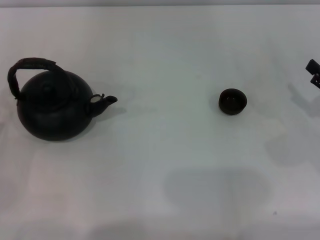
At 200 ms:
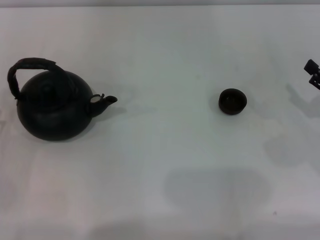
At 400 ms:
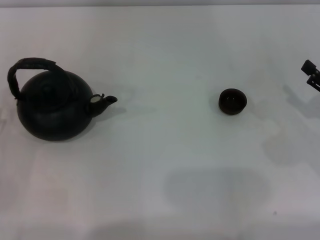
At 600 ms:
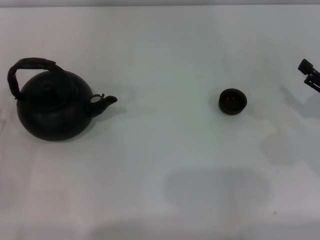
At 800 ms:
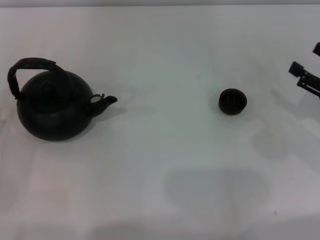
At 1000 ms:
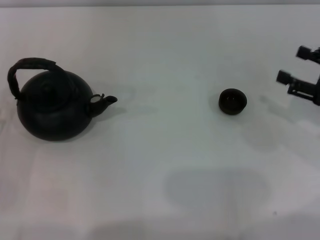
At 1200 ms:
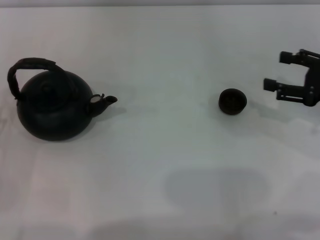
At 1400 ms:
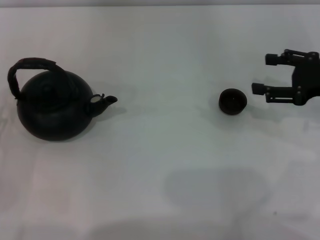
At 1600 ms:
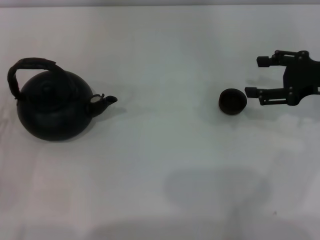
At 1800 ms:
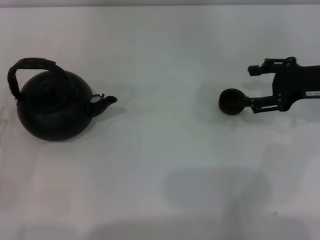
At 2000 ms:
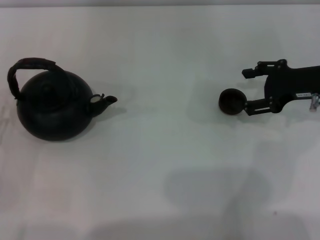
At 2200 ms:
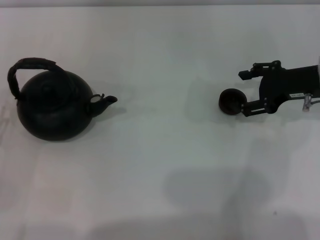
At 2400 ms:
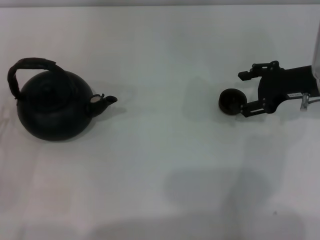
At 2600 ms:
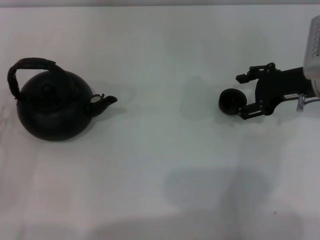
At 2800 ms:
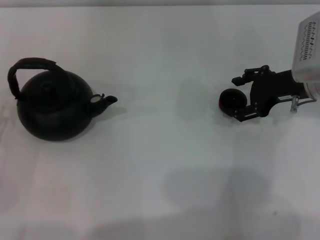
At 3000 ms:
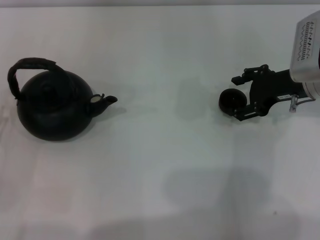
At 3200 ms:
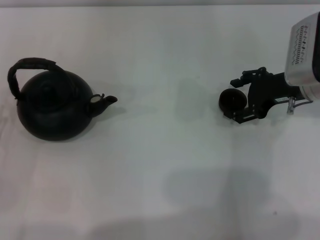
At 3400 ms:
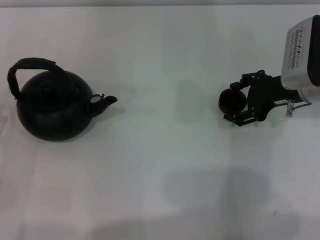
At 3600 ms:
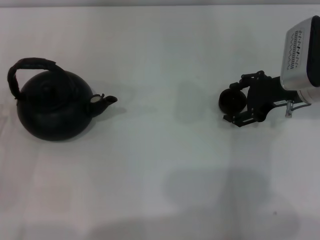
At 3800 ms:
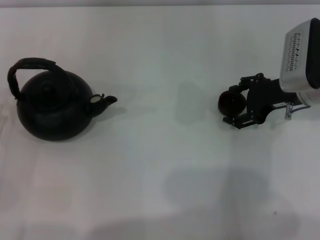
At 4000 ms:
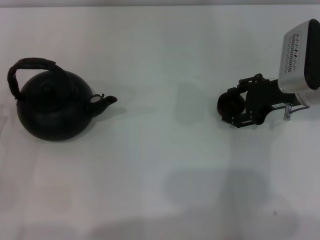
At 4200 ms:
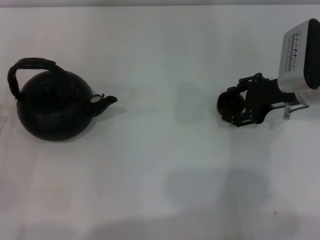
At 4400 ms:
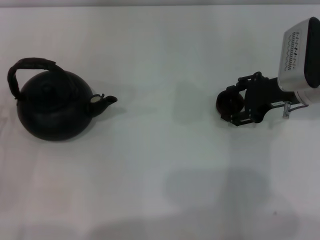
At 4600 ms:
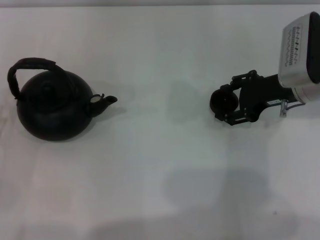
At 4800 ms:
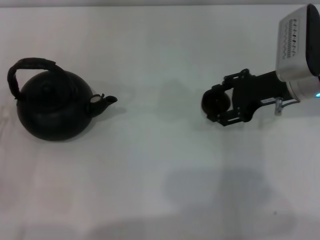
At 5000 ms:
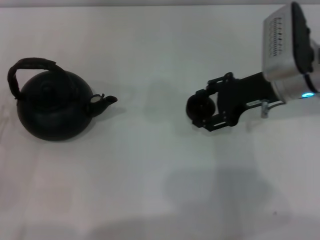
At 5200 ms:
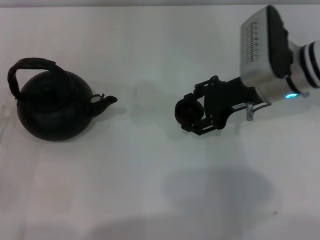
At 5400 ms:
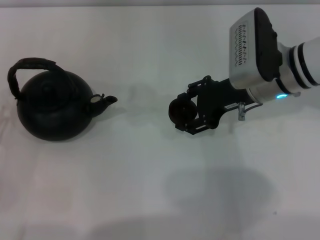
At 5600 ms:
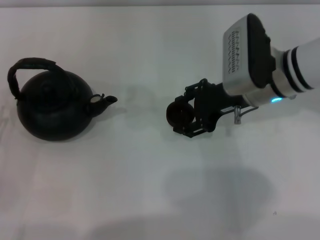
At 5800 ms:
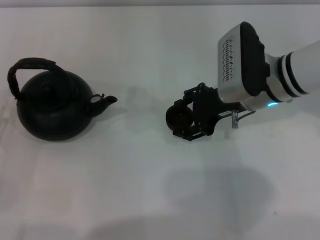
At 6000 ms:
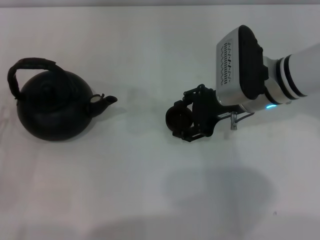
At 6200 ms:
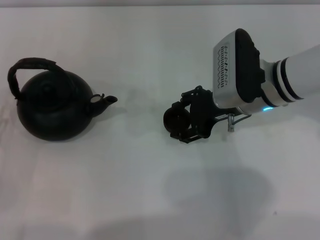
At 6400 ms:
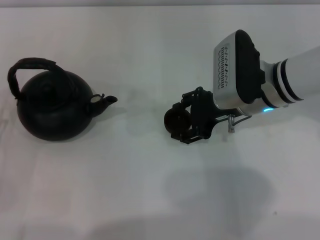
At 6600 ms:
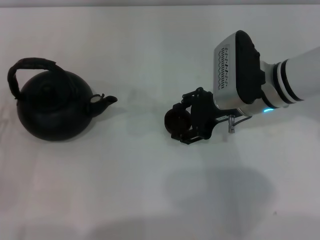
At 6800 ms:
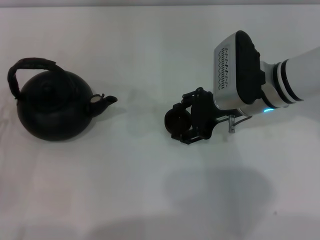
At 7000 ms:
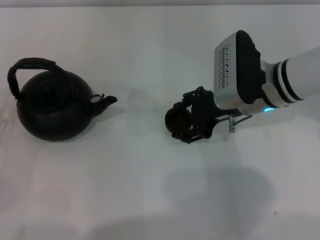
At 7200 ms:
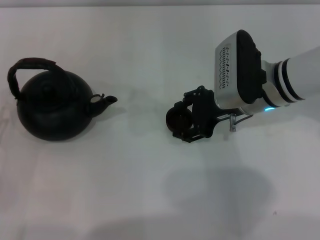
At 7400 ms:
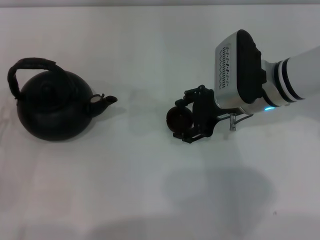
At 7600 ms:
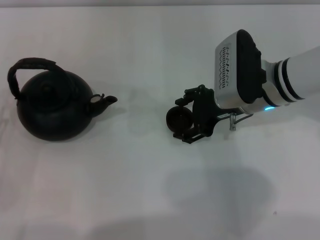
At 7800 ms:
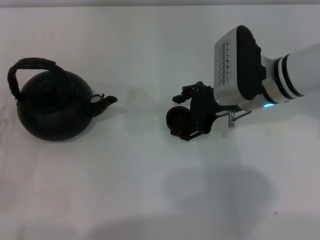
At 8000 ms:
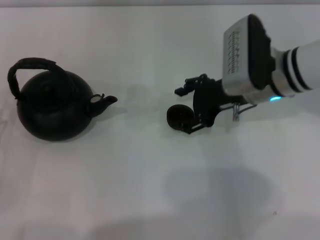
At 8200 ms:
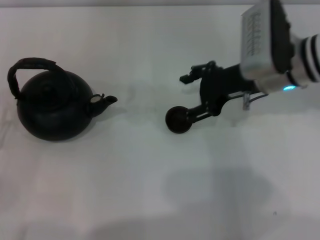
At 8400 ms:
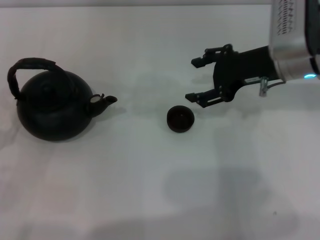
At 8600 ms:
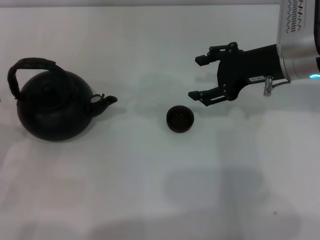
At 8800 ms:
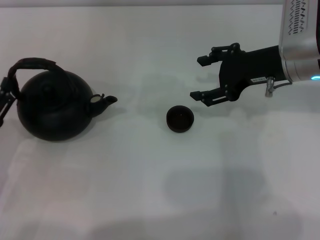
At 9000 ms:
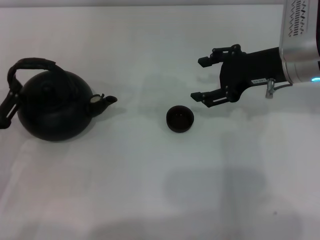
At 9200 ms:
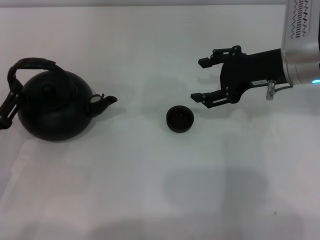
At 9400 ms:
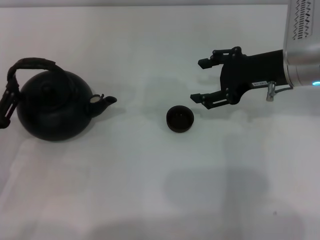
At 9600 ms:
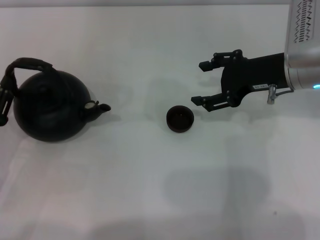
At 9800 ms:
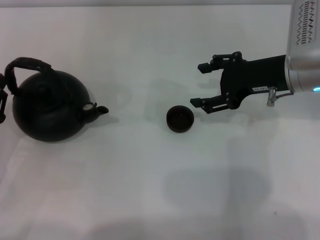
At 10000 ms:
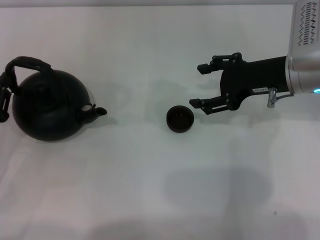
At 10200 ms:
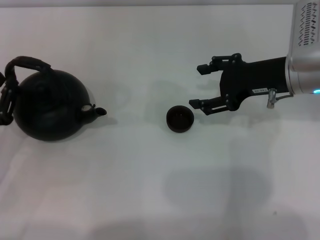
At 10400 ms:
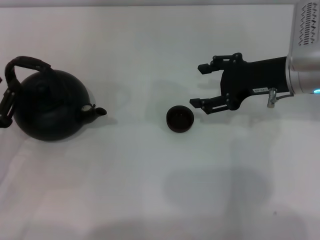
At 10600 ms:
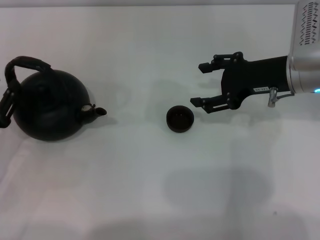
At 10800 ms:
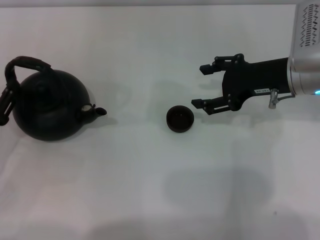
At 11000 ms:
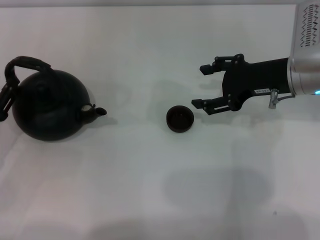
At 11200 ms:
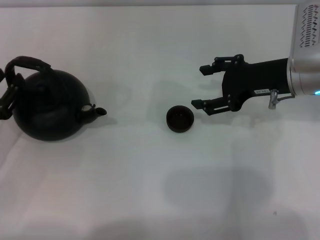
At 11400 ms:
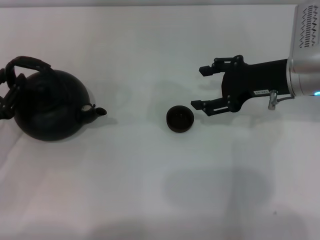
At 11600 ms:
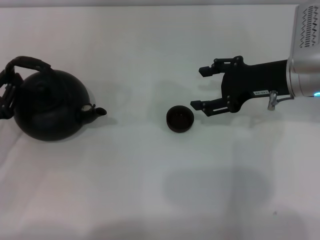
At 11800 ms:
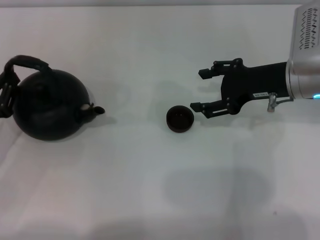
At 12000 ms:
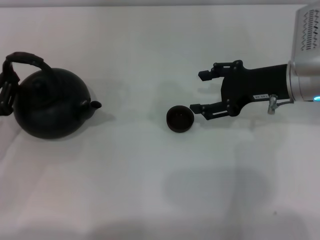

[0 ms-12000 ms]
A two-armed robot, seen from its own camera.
Task of the whole recording: Grasp the handle of the teapot with one hand and pour tea into the teacup.
Step, 0 ms to 4400 ms: Pick up the teacup with the right gripper.
Step, 4600 ms to 8000 ms: Place the teacup in the center of view with the right gripper.
0 ms to 1600 ms: The right gripper moves upward and forward, some 10 cm.
1600 ms to 3000 ms: The right gripper heads to the left, covering some 5 cm.
3000 ms to 4400 ms: The right gripper closes.
4400 ms to 6000 ms: The right gripper goes about 10 cm to the left.
6000 ms to 7600 ms: The right gripper opens.
7600 ms to 9000 ms: The right gripper shifts about 5 cm to the right, and opens.
9000 ms to 10400 ms: The left gripper closes up.
10400 ms to 12000 ms: The grippers make only small movements.

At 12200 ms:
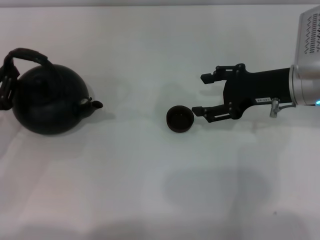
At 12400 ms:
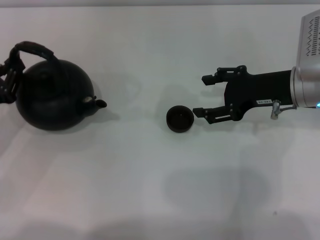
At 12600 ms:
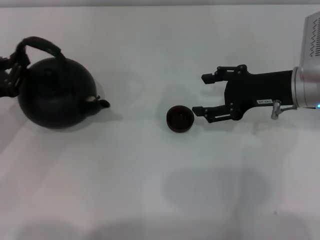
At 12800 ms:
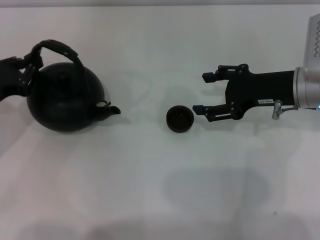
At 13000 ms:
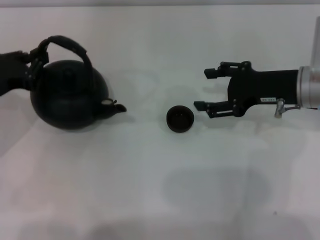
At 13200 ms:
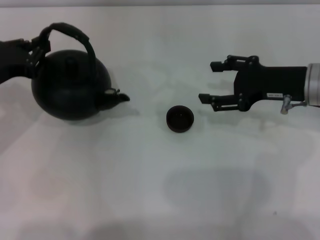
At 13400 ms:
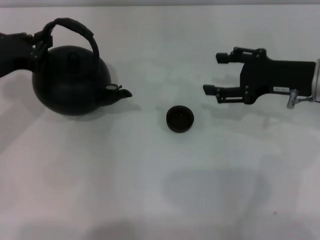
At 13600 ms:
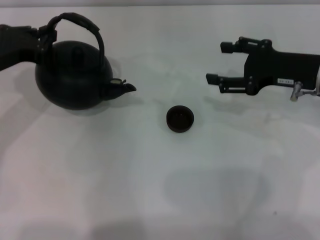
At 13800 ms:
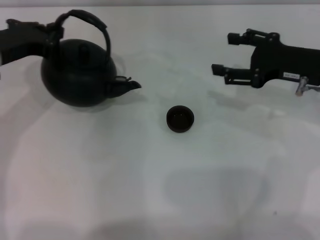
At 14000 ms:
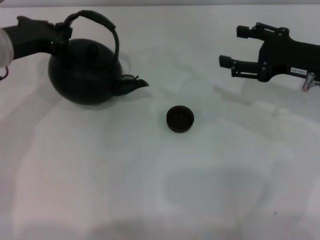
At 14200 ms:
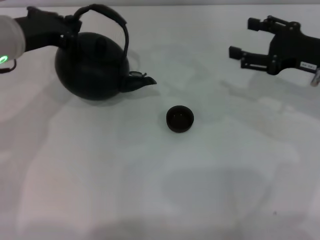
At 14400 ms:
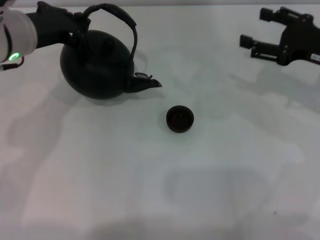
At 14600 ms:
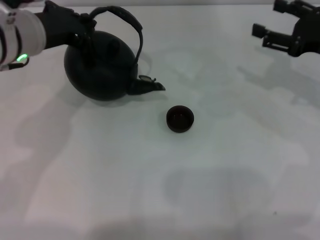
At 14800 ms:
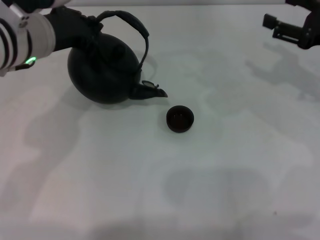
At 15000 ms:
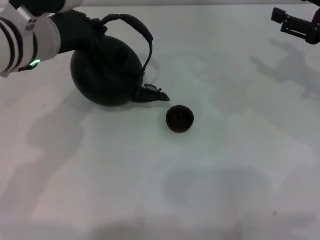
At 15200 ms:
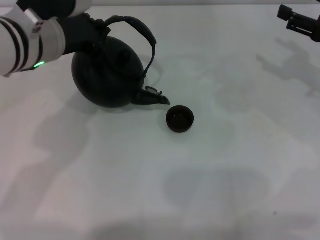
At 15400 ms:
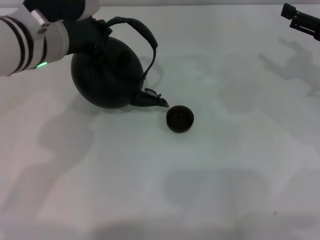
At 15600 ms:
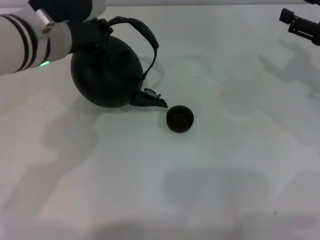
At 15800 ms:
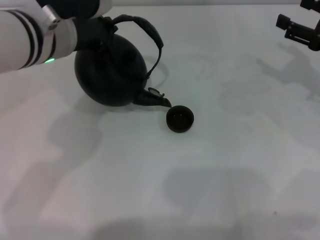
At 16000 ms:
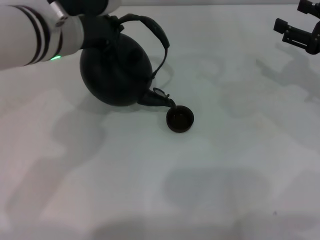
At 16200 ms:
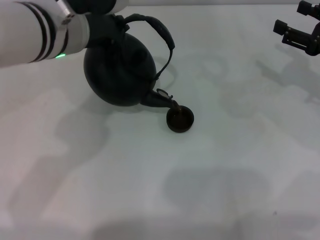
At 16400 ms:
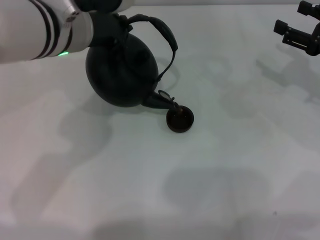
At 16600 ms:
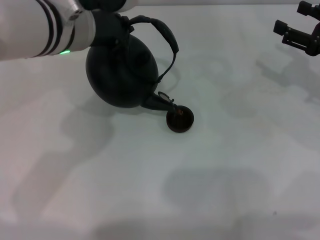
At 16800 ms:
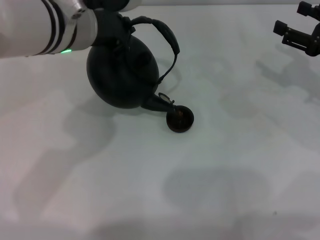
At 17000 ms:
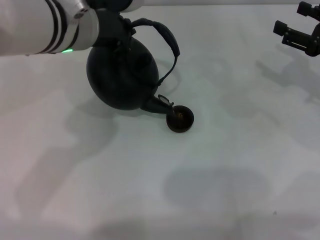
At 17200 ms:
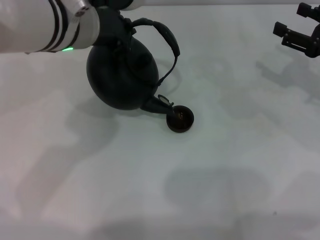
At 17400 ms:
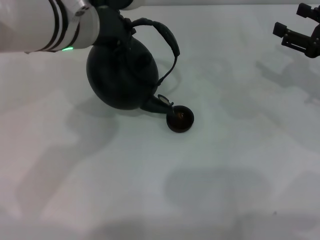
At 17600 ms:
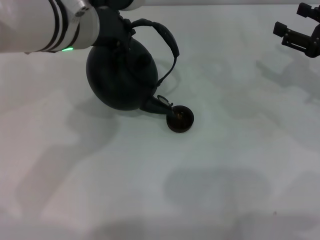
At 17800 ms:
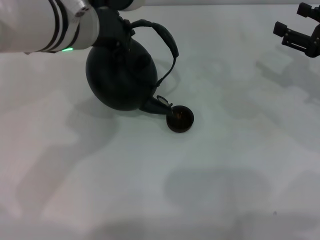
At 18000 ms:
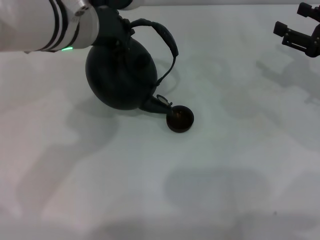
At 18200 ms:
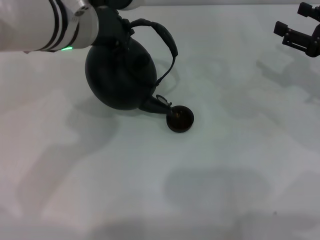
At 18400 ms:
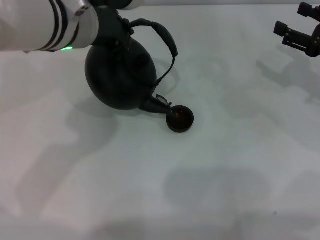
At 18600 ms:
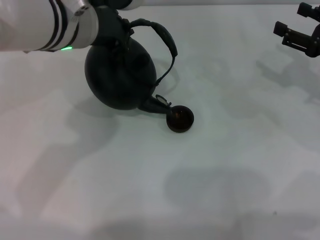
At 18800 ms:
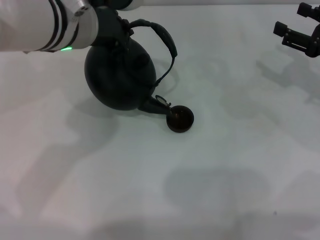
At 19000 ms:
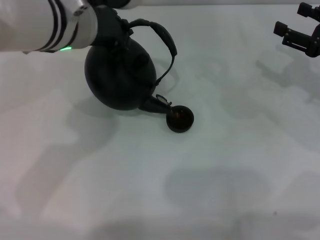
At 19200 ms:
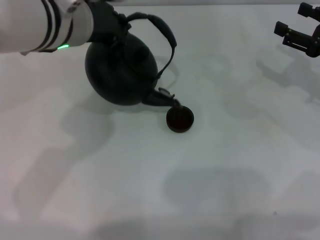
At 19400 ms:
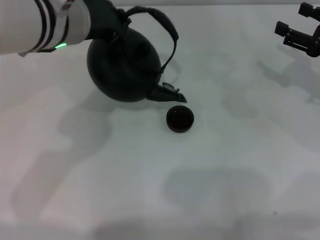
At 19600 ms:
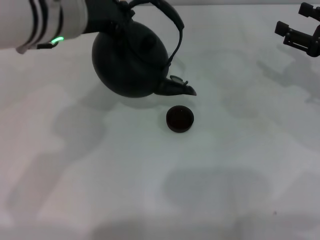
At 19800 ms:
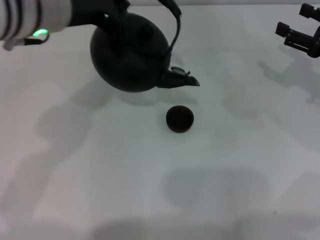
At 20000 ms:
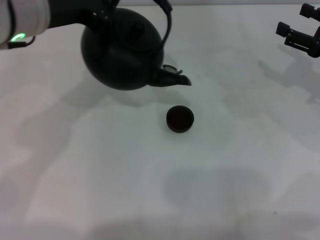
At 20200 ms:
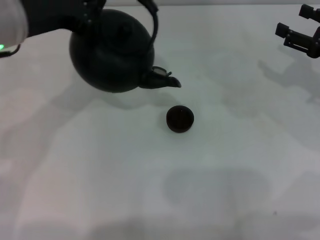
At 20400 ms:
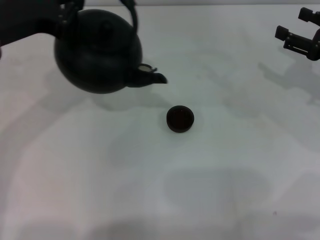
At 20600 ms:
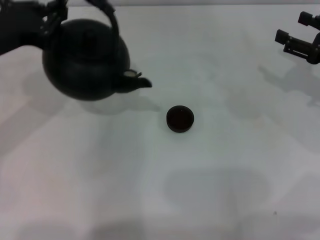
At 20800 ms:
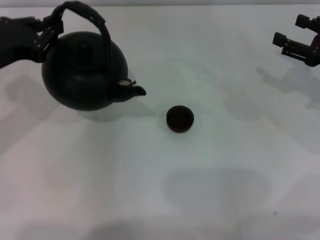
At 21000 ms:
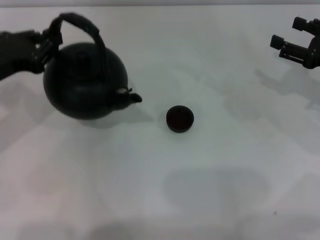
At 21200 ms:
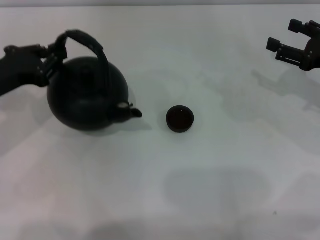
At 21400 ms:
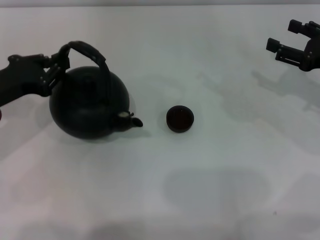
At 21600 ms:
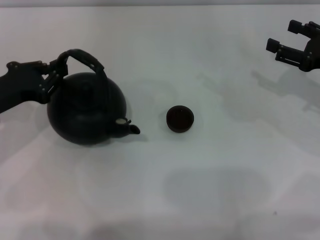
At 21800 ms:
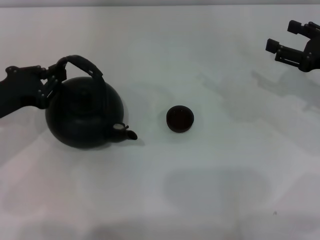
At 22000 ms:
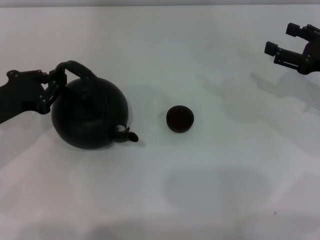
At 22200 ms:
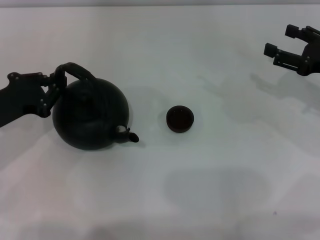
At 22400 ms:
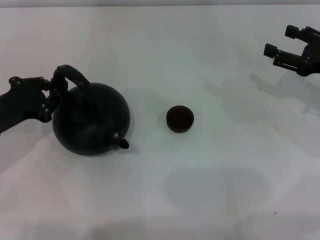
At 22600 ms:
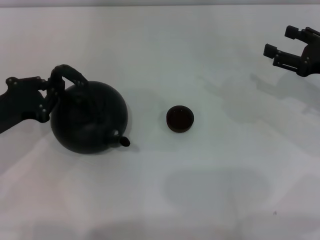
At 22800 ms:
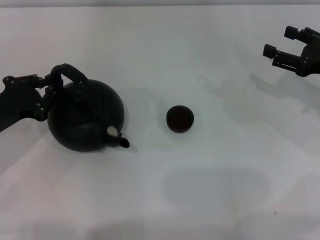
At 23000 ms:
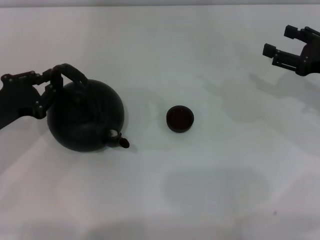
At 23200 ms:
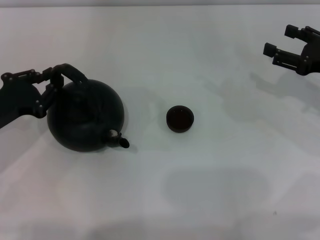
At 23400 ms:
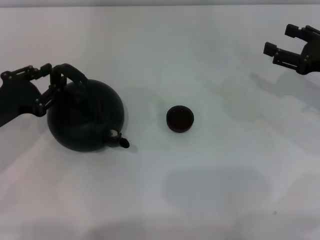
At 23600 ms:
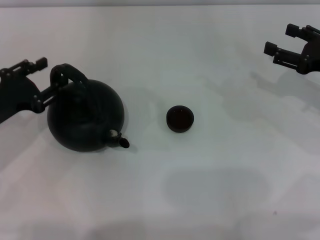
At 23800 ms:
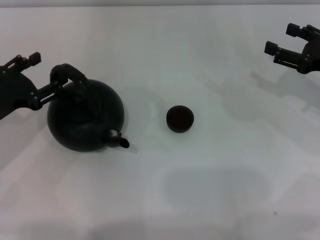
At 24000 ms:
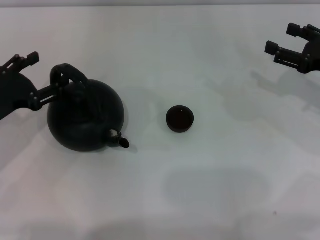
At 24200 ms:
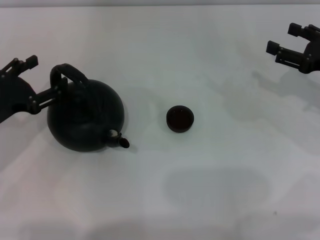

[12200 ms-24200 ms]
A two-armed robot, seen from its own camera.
Task of the whole recording: Grasp the handle of the teapot with one hand and pour tea into the teacup.
Step, 14000 ms to 19200 ms: Pour tea into the teacup with the left gripper.
12200 ms to 13800 ms: The left gripper is displaced upward, forward and to the right by approximately 15 cm.
13800 ms to 15200 ms: The grippers both shift to the right by approximately 10 cm.
15200 ms to 16600 ms: The grippers make only small movements.
16600 ms to 18200 ms: The two grippers keep their place.
18200 ms to 19800 ms: There are only small adjustments of the grippers.
19800 ms to 21200 ms: The left gripper travels to the left and downward by roughly 20 cm.
21200 ms to 22600 ms: The left gripper changes place by roughly 5 cm.
22600 ms to 24200 ms: The left gripper opens up.
